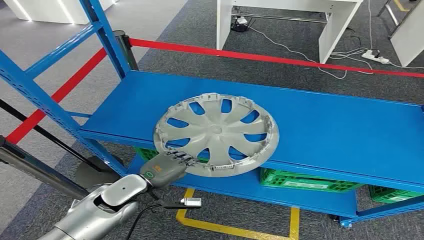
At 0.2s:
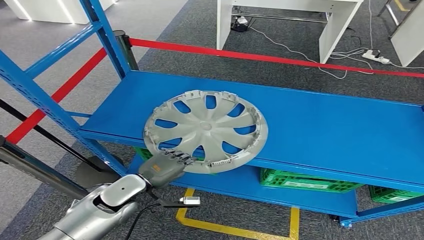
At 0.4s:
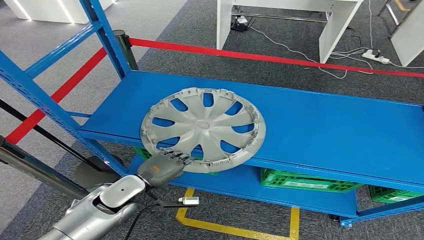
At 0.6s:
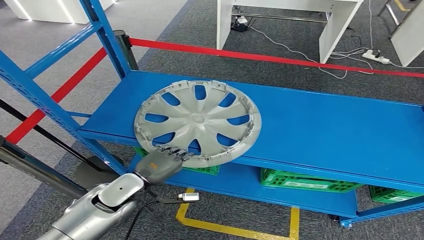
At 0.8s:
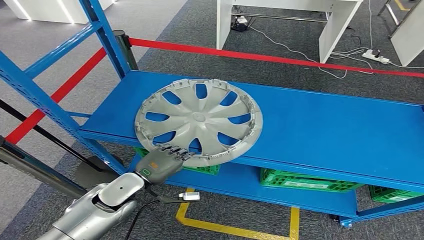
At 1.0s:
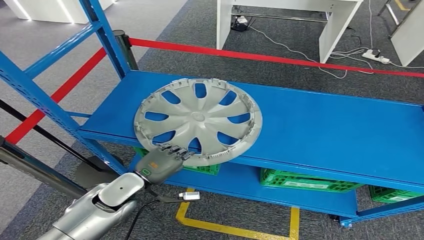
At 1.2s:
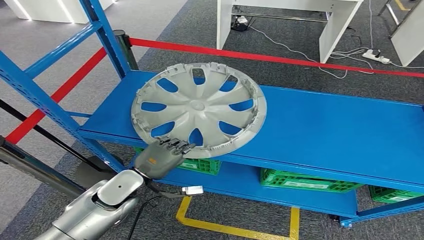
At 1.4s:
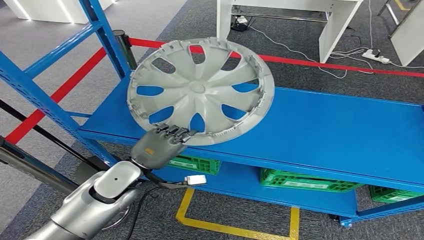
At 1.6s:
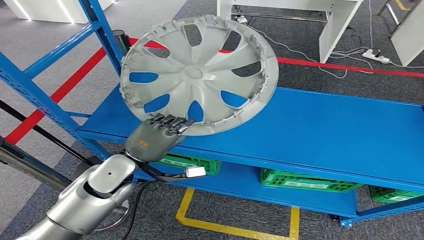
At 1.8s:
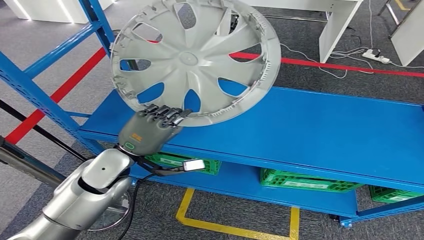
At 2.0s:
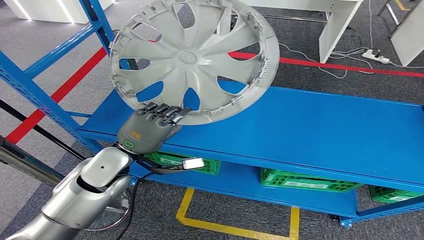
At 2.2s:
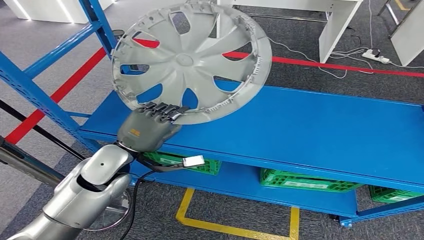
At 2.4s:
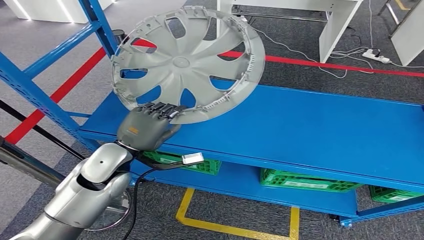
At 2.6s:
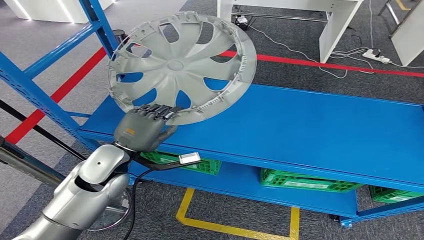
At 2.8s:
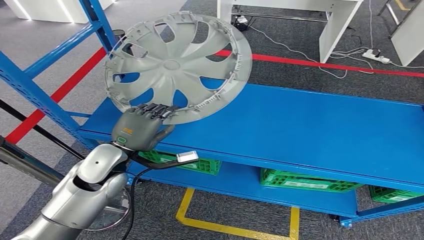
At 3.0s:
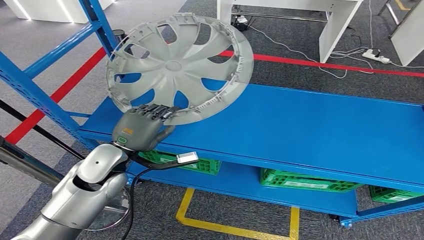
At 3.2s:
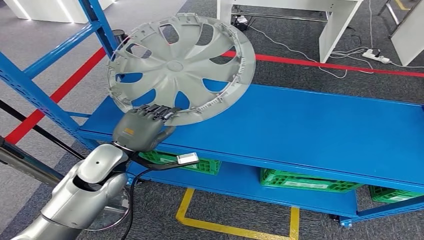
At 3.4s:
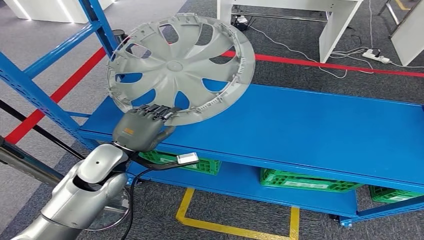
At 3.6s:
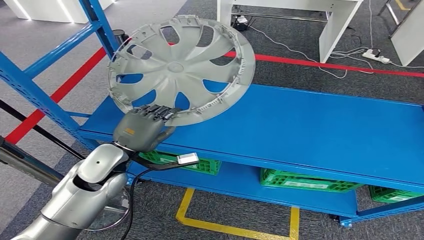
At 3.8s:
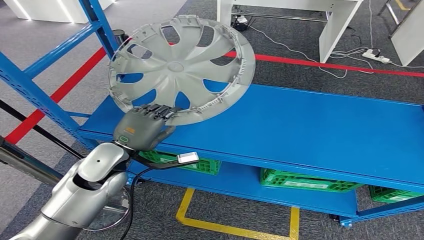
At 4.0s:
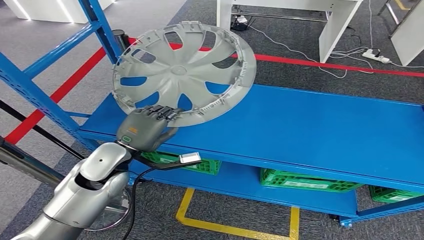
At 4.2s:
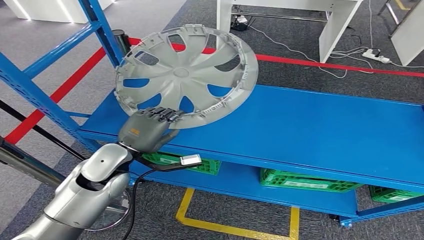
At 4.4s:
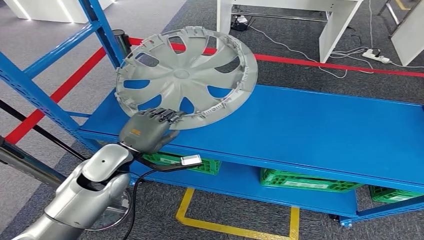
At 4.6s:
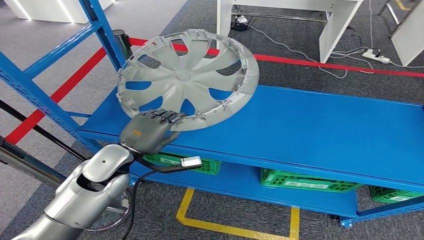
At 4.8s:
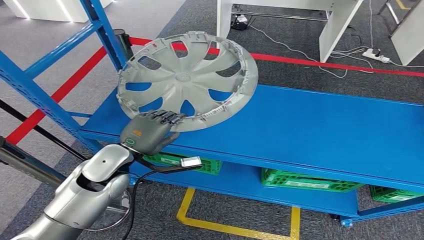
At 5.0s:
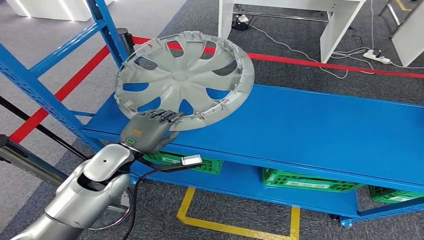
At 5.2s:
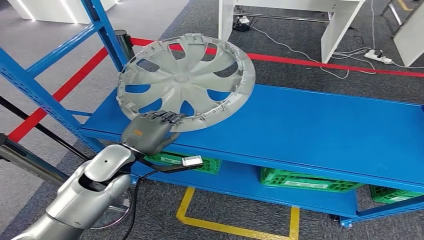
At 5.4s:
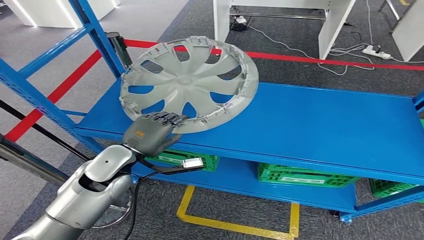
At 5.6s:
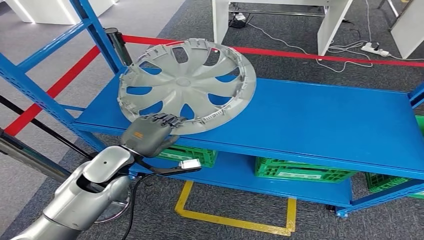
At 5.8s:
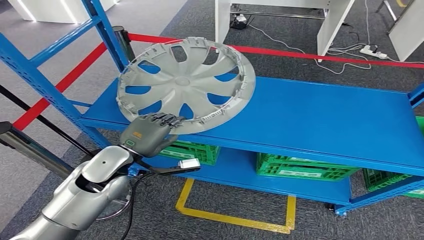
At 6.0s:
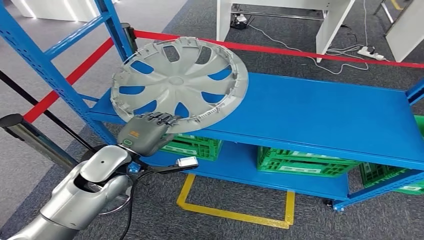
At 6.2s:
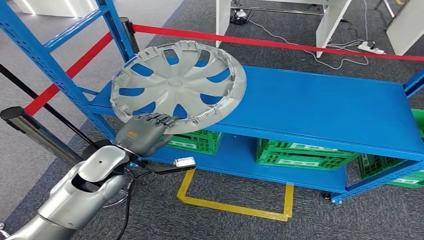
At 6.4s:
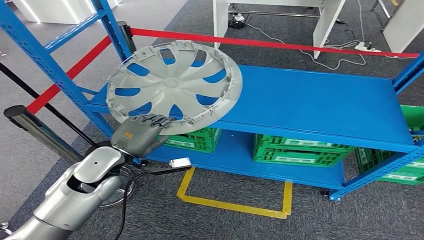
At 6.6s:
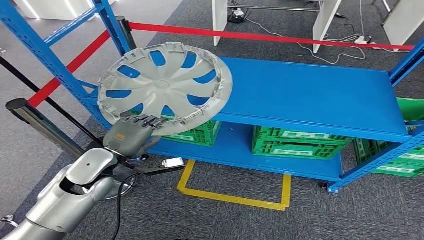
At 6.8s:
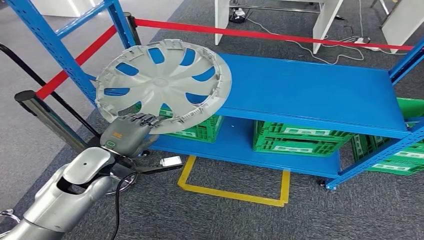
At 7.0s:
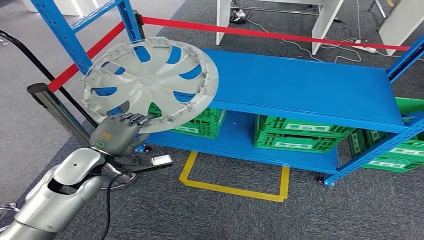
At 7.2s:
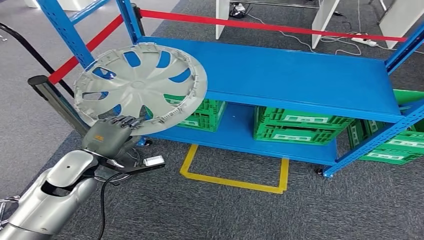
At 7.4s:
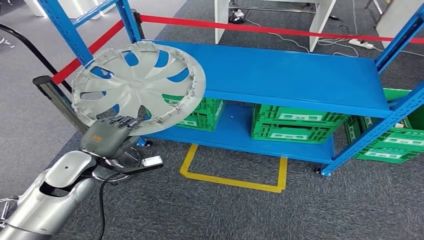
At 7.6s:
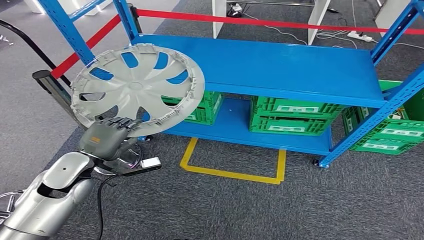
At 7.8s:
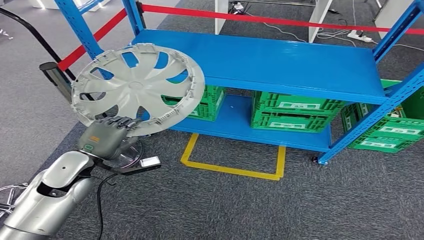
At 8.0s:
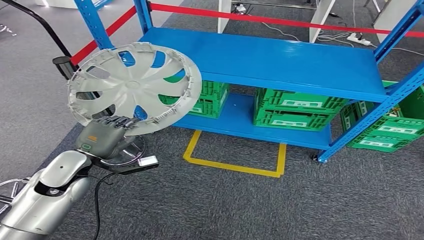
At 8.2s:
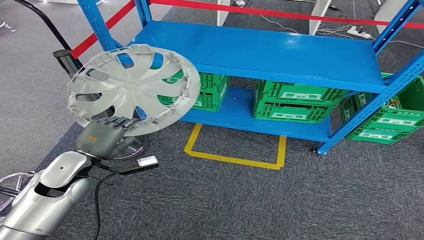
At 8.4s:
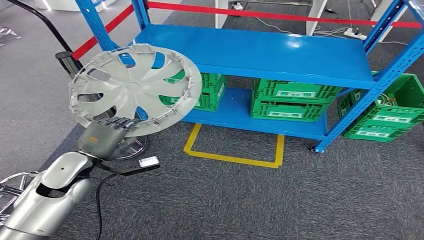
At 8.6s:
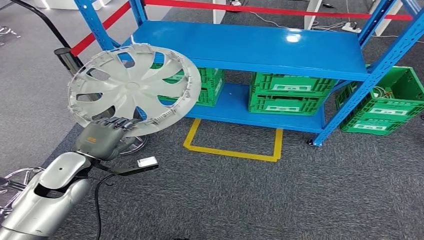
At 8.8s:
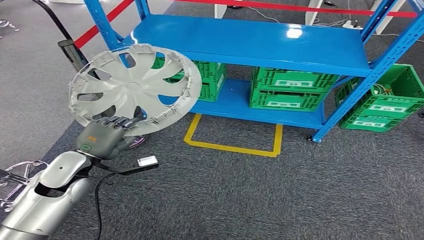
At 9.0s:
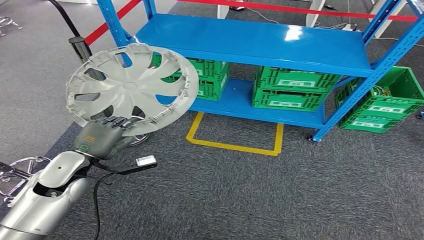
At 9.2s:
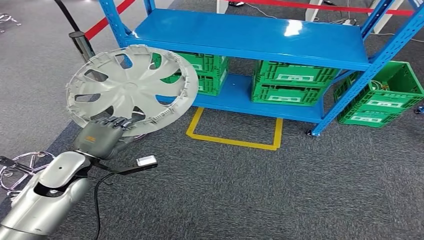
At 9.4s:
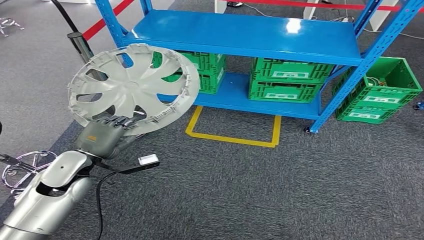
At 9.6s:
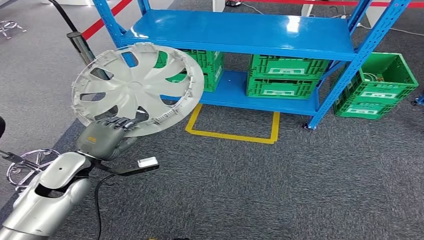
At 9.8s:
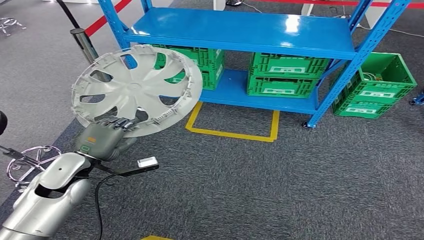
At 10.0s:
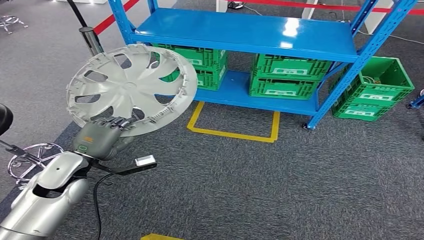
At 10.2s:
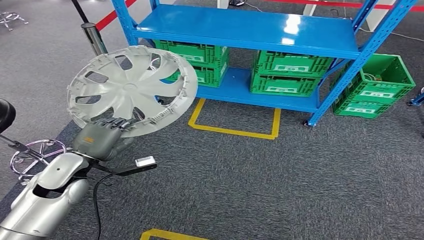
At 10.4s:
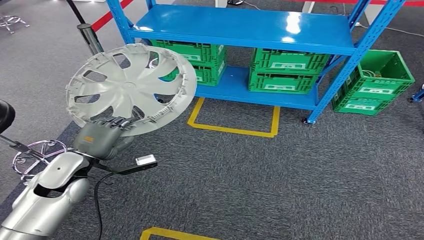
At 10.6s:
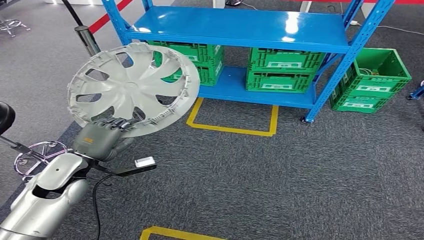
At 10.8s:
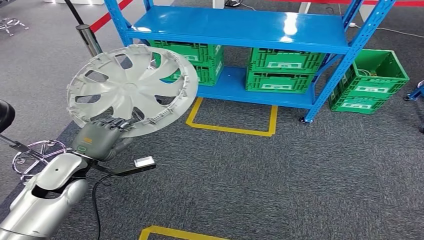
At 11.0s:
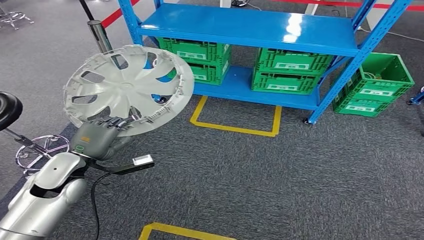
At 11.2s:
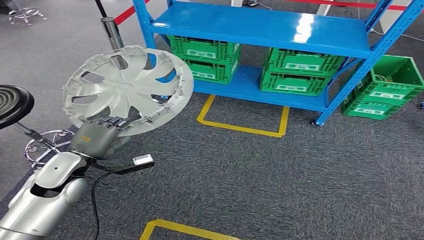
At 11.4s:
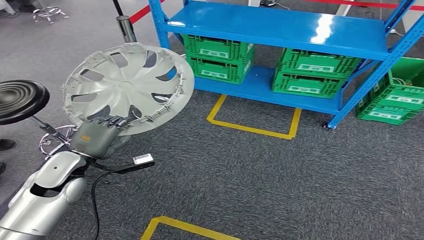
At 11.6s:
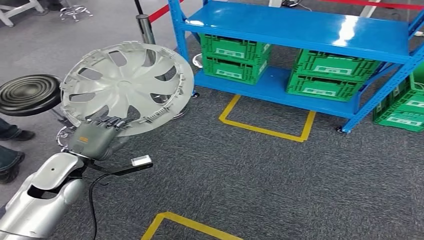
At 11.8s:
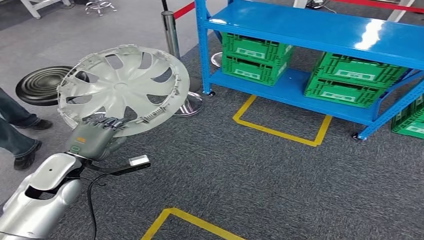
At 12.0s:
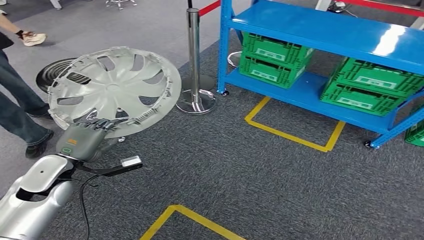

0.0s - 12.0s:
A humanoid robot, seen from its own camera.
Step, 0.0s - 3.4s: Pick up the small component from the shelf.
1.6s - 4.4s: There are only small adjustments of the hands.

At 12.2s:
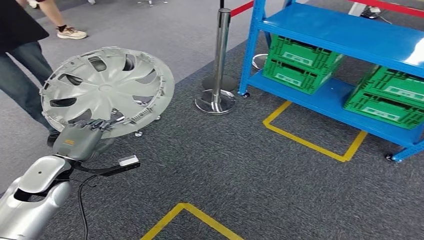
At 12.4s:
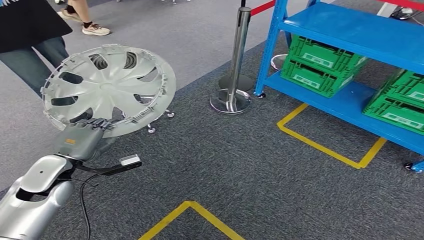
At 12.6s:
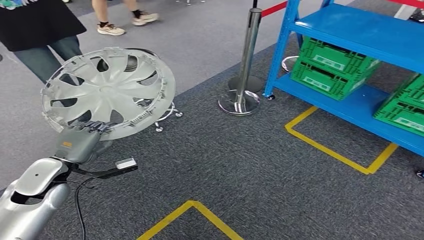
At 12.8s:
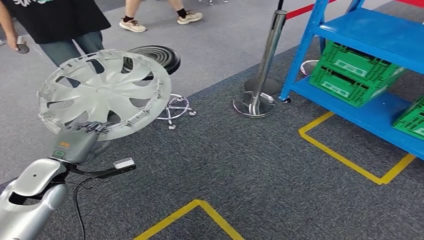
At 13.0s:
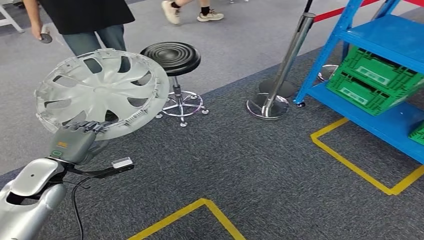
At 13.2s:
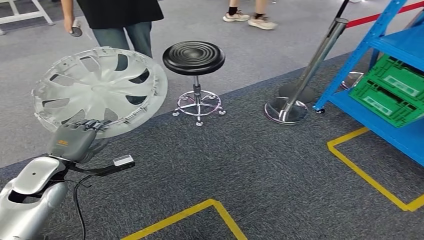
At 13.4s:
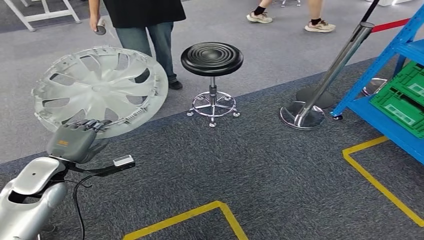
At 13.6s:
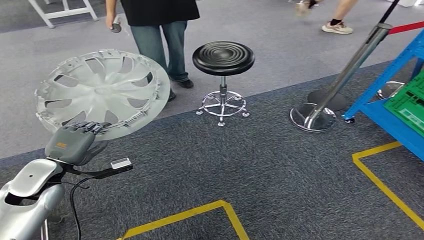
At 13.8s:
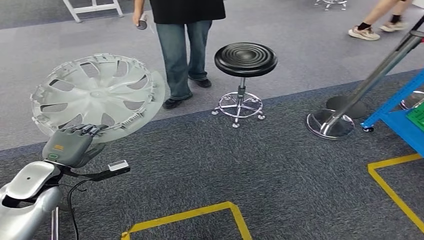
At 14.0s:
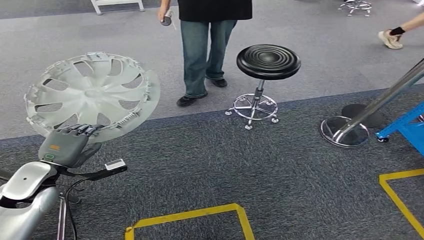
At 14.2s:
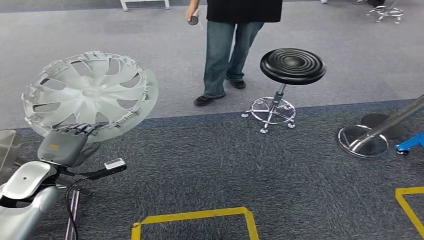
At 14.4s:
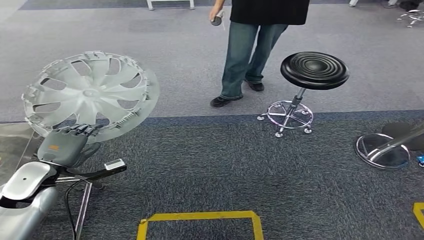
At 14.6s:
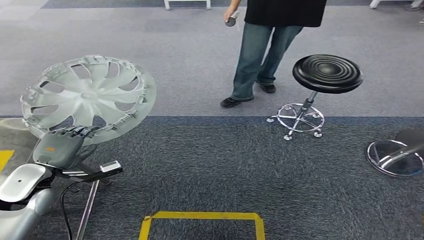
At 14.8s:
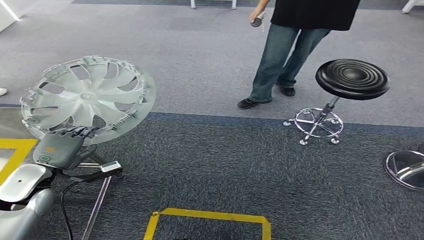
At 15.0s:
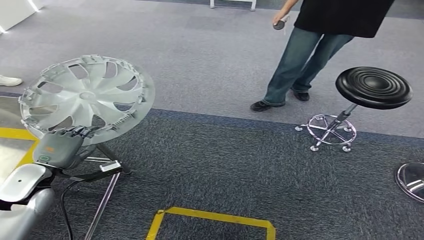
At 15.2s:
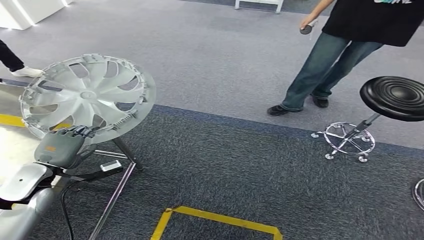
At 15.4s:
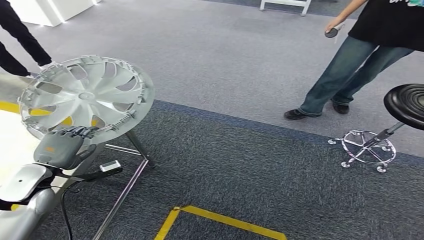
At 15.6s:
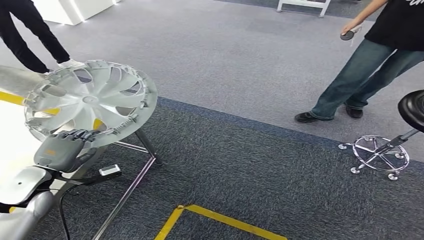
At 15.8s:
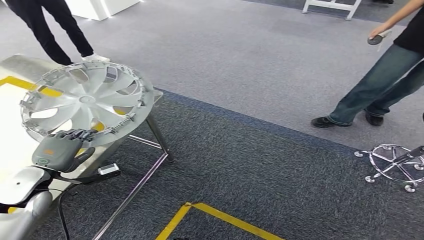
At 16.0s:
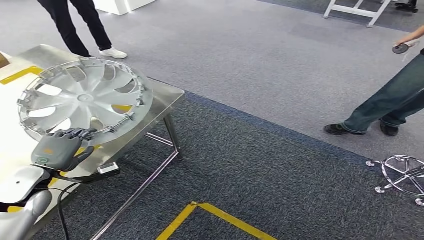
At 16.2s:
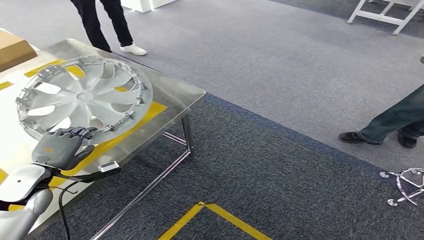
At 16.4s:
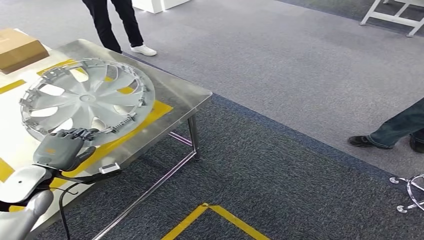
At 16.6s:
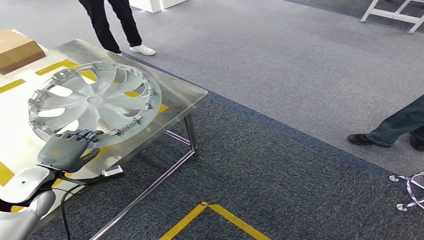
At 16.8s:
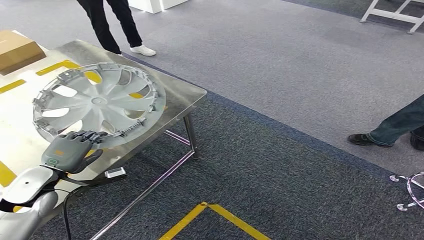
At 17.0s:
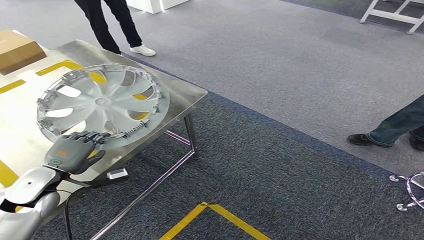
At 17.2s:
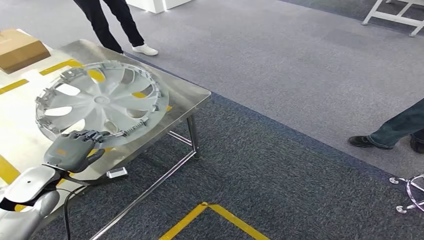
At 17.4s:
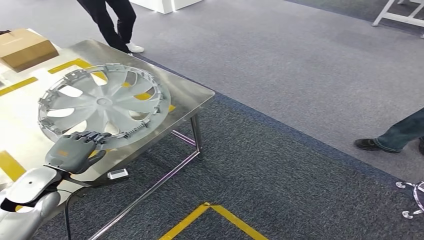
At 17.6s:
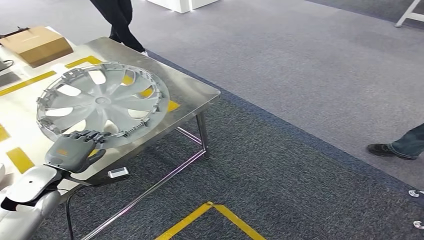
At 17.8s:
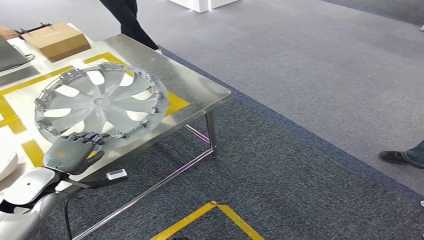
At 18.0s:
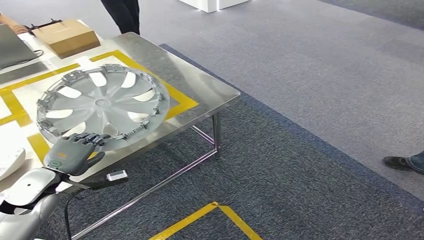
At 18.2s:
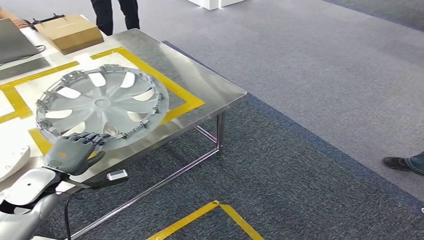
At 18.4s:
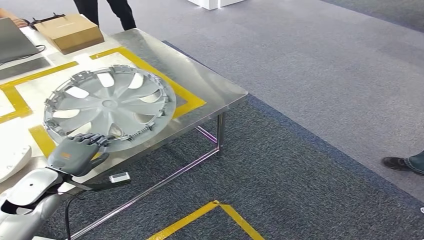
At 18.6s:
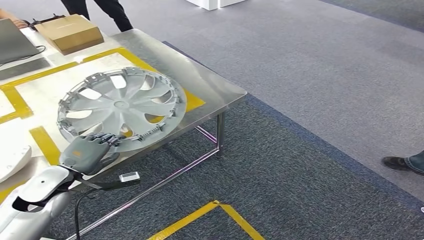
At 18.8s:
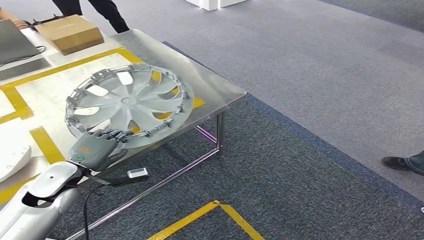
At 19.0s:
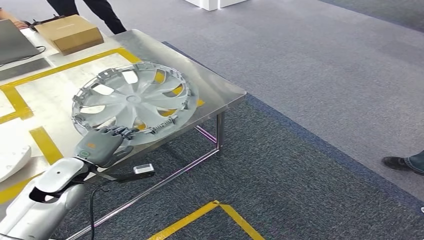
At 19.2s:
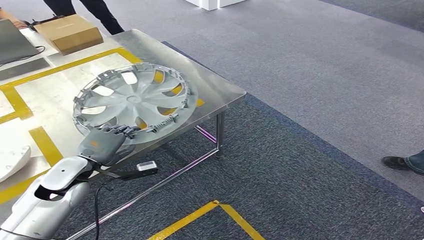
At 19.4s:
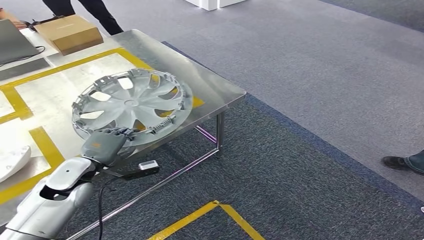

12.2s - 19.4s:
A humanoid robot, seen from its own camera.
Step, 12.2s - 16.2s: Move the small component to the workbench.
